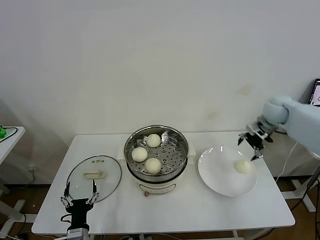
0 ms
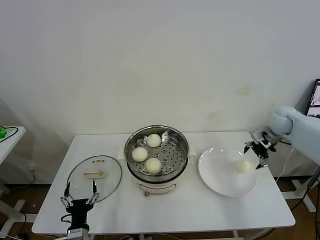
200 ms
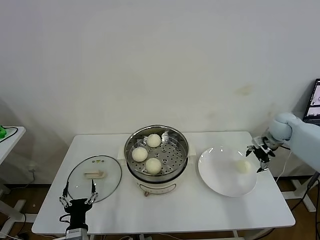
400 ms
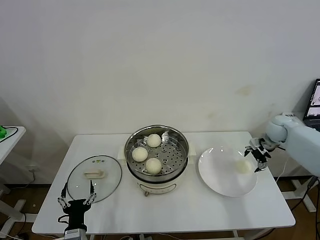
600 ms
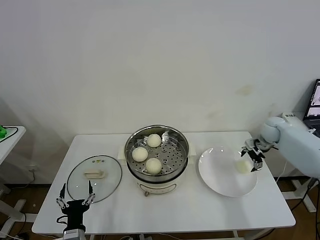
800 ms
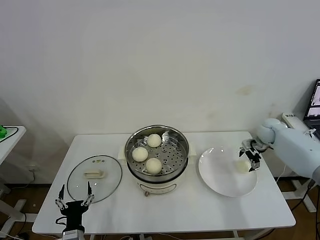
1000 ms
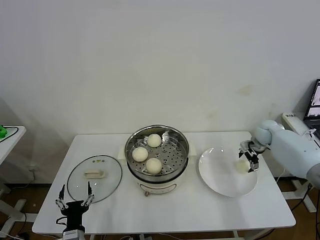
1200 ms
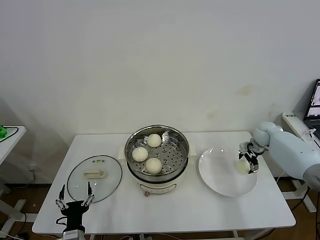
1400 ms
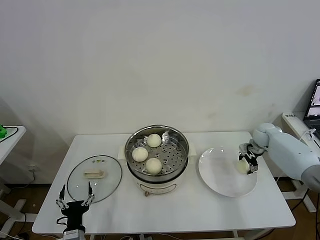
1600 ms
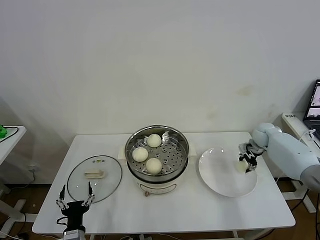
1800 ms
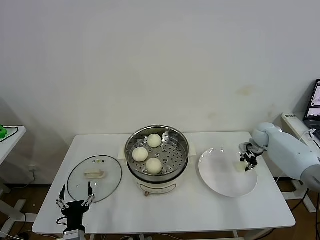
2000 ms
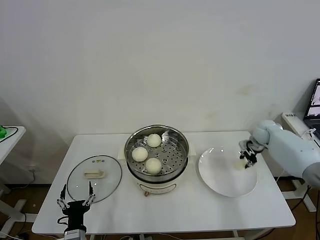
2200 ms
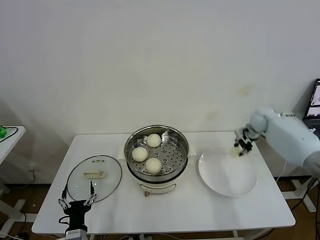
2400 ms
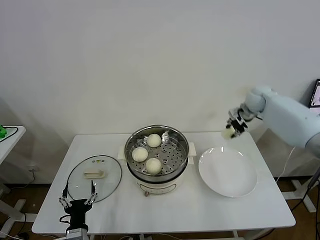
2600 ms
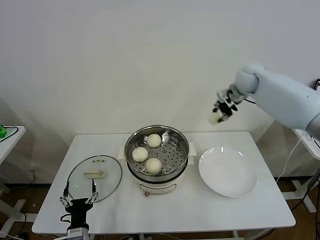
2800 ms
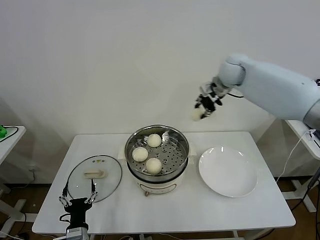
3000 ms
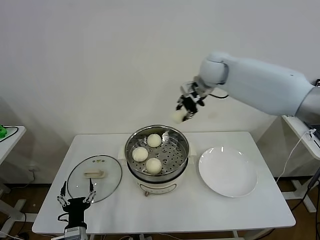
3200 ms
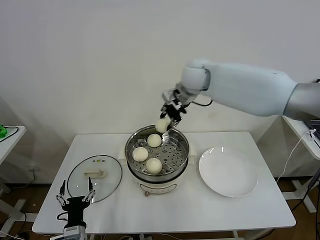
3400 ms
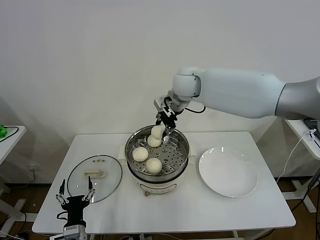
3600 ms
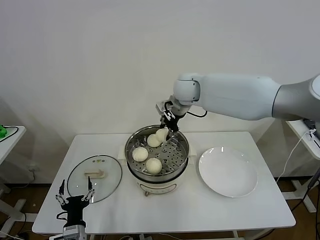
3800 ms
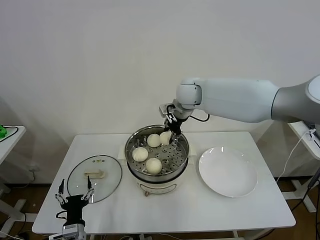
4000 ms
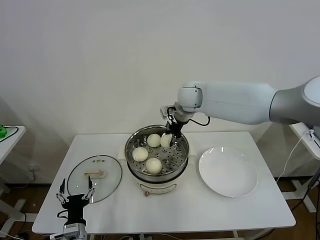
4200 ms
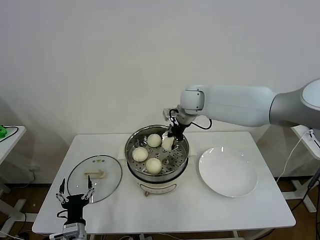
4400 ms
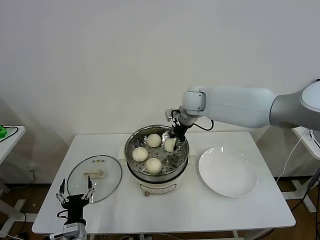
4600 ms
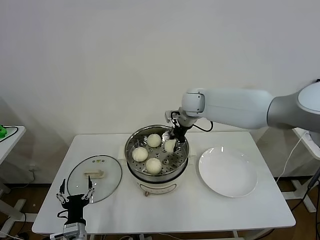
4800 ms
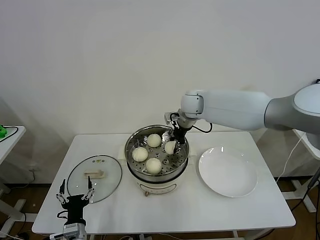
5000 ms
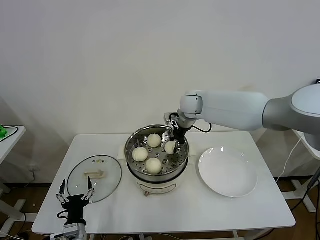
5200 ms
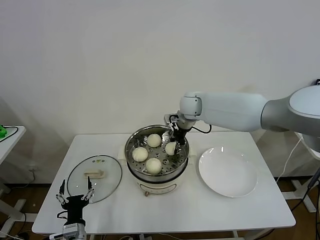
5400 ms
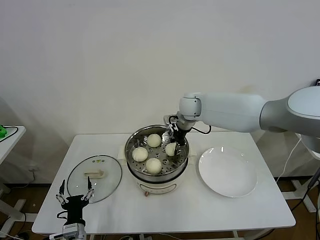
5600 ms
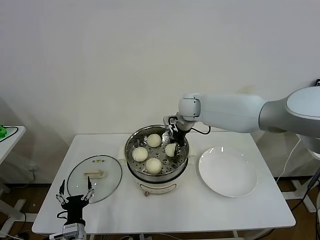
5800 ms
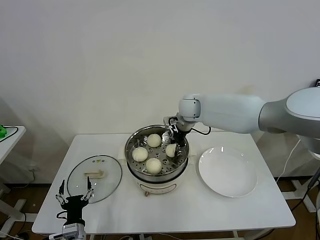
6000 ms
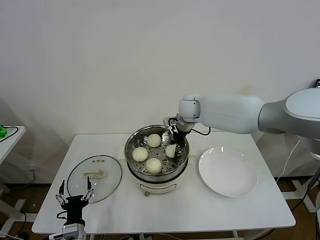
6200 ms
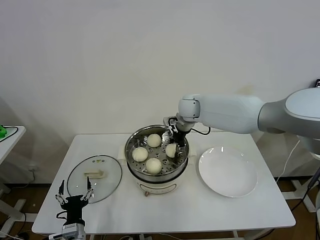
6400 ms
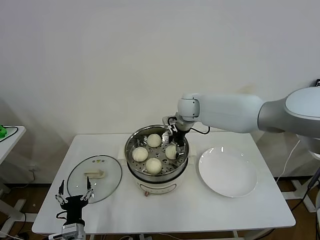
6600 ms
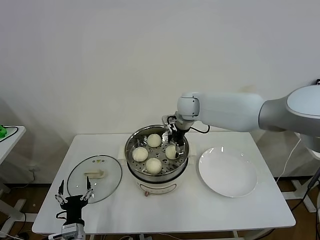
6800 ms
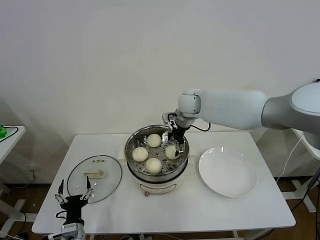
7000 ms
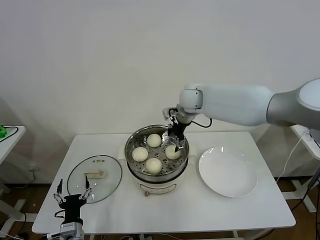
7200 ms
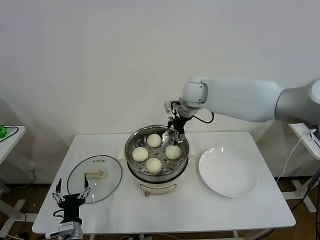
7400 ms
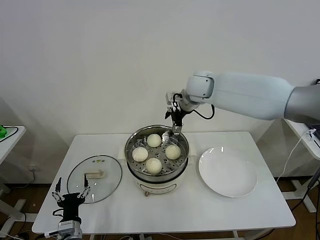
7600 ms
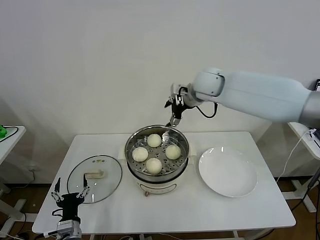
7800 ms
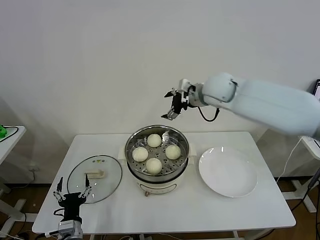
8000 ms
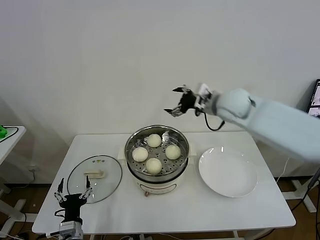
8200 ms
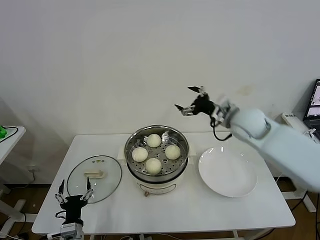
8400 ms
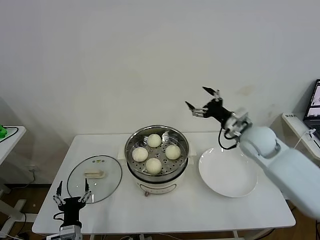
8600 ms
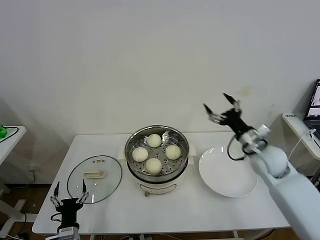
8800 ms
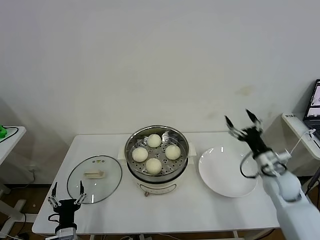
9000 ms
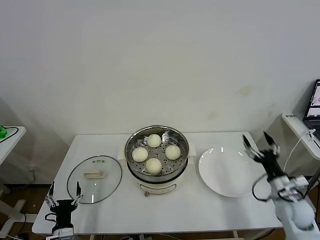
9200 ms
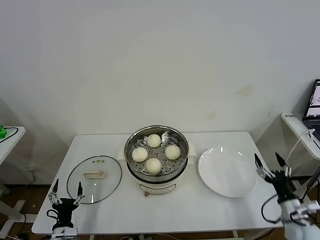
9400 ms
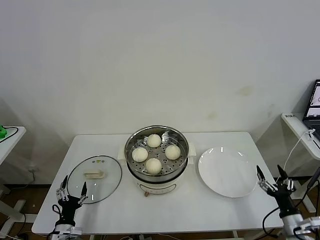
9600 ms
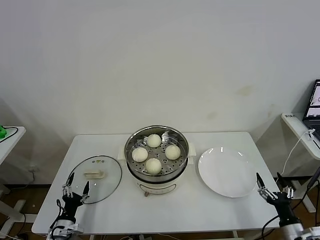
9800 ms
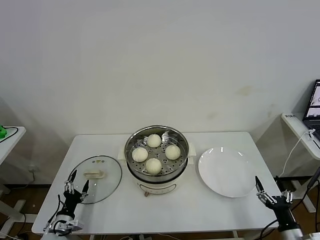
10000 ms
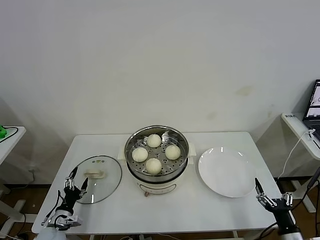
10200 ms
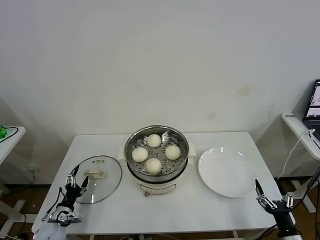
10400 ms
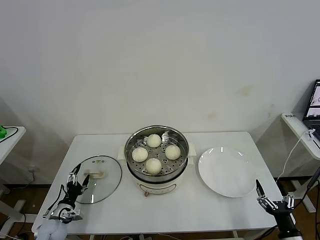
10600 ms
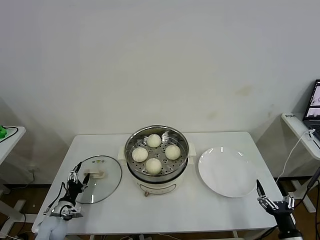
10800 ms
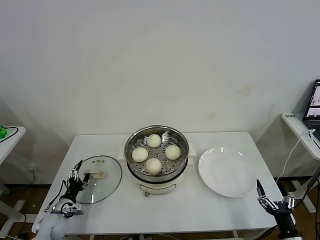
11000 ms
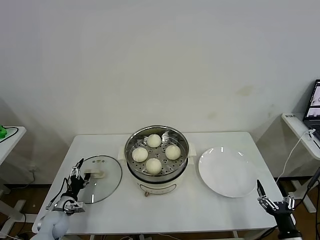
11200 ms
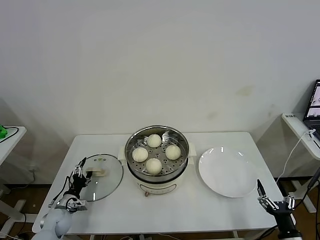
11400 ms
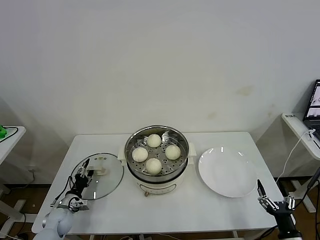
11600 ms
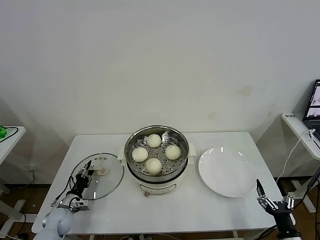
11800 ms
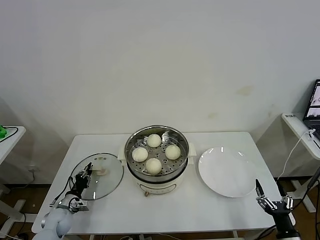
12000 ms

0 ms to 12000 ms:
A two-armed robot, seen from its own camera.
Task of the whole recording: take steamed baozi put them in steamer then cover it.
Step, 0 ms to 2000 ms: Grasp the baozi in the plate with right gripper.
Step, 2200 ms to 6600 ms: Place the baozi on the steamer with right gripper.
0 ms to 1600 ms: The right gripper is displaced downward by some 15 cm.
1600 ms to 3000 ms: The right gripper shifts approximately 35 cm upward and to the left, and closes.
3000 ms to 4400 ms: The right gripper is displaced to the left and downward by some 15 cm.
4400 ms to 6000 ms: There are only small adjustments of the grippers.
6000 ms to 7600 ms: The right gripper moves upward, about 10 cm, and opens up.
7600 ms to 9000 ms: The right gripper travels to the right, backward and downward by approximately 40 cm.
9000 ms to 10400 ms: The right gripper moves backward and downward, roughly 25 cm. Meanwhile the left gripper heads to the left and forward, covering about 15 cm.
10400 ms to 12000 ms: The left gripper goes about 5 cm forward, and closes its fingers.

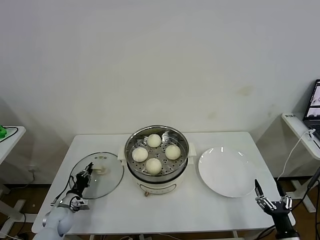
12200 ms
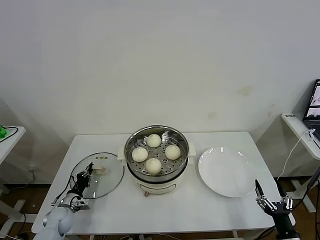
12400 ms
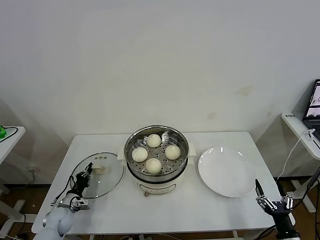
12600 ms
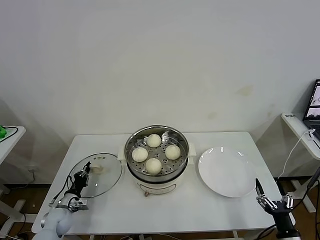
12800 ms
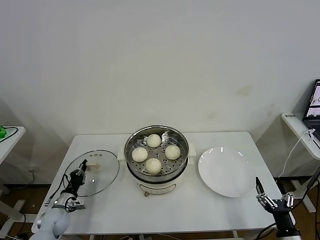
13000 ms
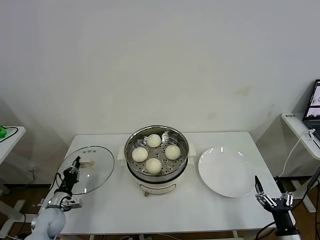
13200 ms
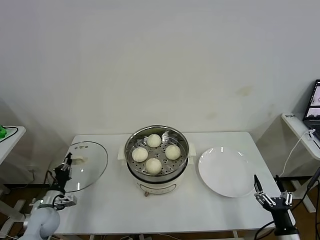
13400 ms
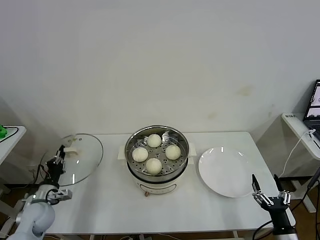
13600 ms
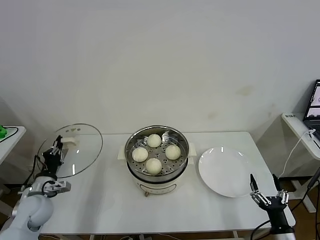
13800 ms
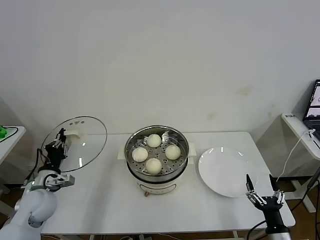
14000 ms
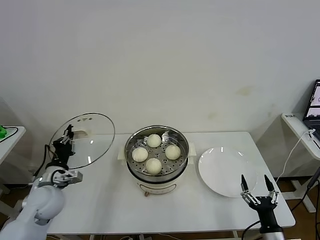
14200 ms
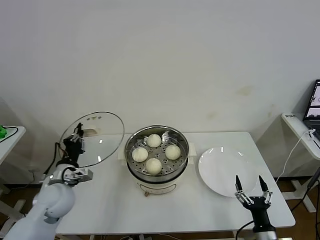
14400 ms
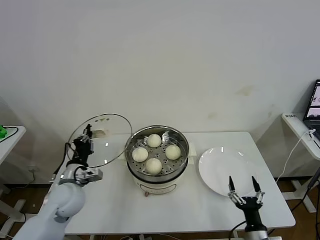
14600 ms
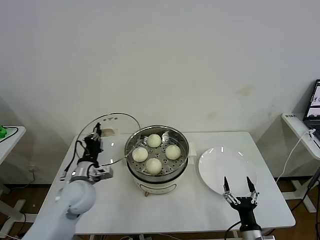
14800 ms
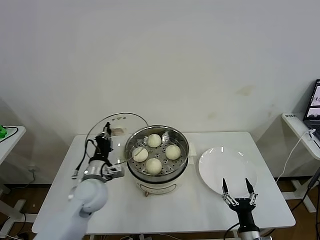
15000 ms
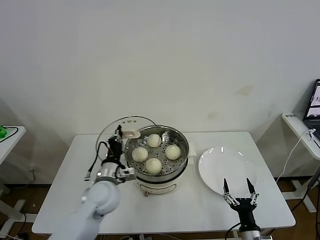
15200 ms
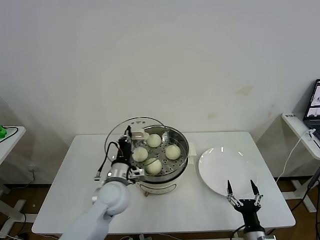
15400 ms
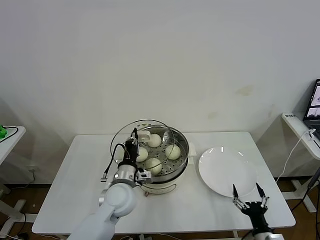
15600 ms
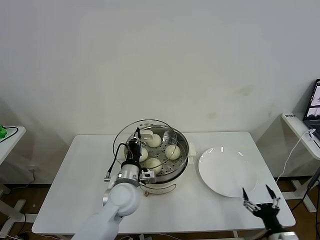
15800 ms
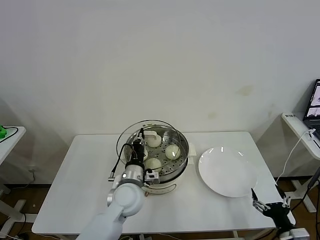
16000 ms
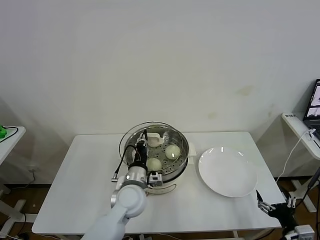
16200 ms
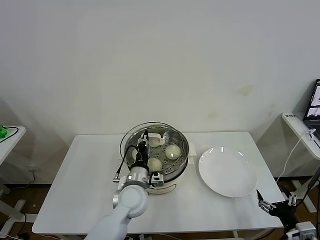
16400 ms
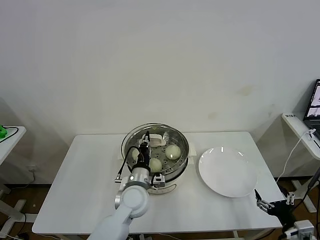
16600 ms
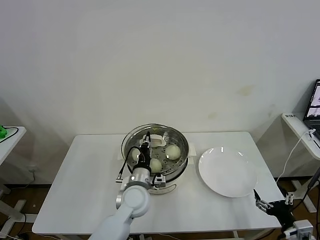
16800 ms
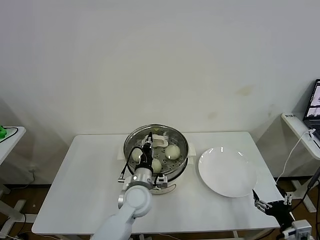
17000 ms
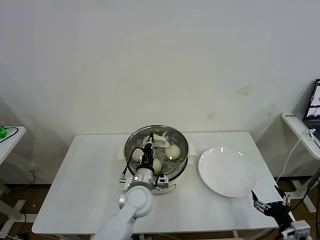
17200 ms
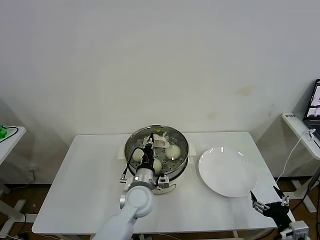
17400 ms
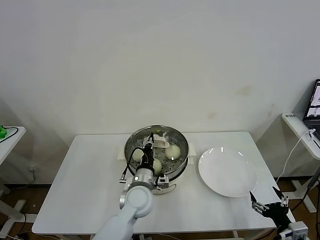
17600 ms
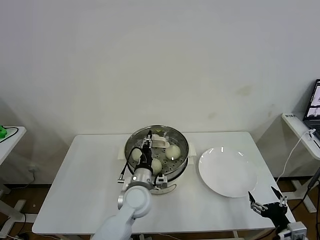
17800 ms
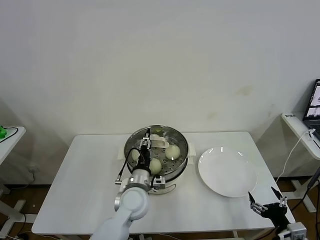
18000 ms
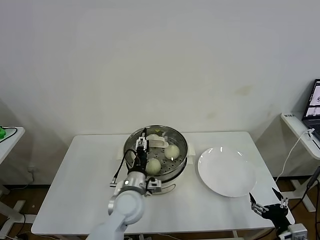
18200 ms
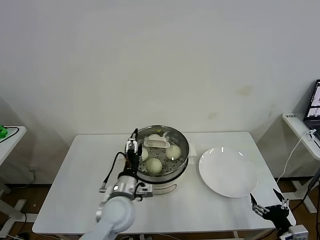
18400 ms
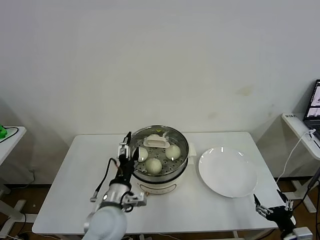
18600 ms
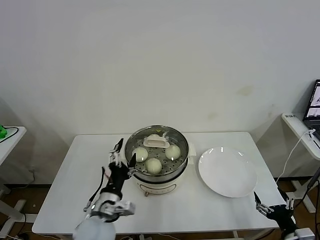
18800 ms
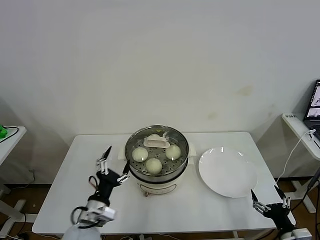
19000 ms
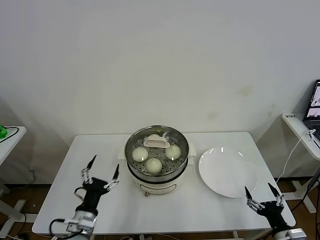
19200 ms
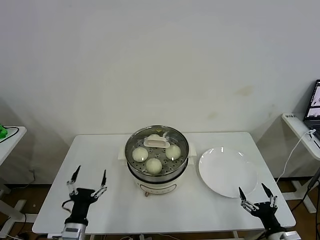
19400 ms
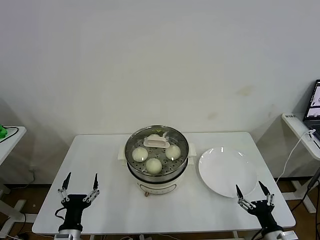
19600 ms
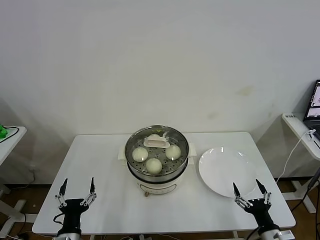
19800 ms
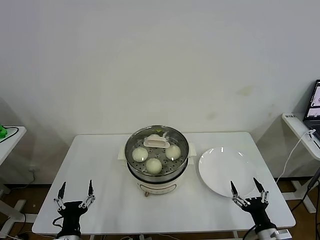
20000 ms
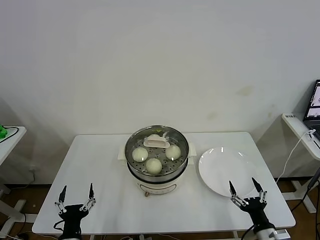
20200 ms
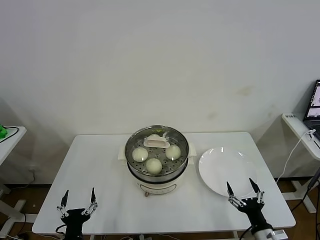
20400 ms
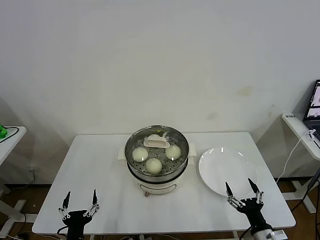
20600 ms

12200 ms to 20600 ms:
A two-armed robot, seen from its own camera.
Task of the whole recording: take steamed baozi put them in steamer then cover it.
Step, 12800 ms to 17800 ms: Place the pot lid on the steamer with left gripper.
12200 ms to 13600 ms: The left gripper travels upward by some 10 cm.
13600 ms to 15000 ms: The right gripper moves to the left, about 10 cm. Meanwhile the left gripper heads to the right and upward, covering some 25 cm.
15000 ms to 16400 ms: The right gripper moves to the right and upward, about 15 cm. The left gripper moves to the right, roughly 15 cm.
16400 ms to 17800 ms: The grippers make only small movements.
17800 ms to 19200 ms: The left gripper is displaced to the left and backward by about 20 cm, and opens.
19200 ms to 20600 ms: The right gripper goes some 5 cm to the left, while the left gripper is displaced backward and downward by roughly 10 cm.
